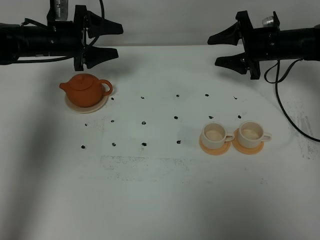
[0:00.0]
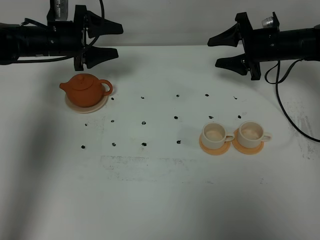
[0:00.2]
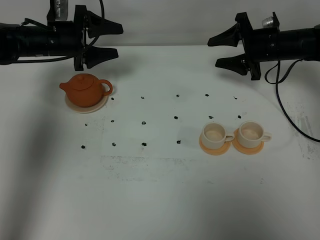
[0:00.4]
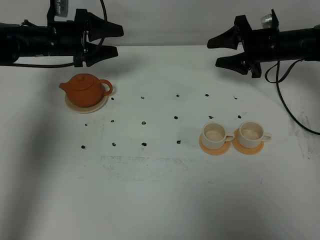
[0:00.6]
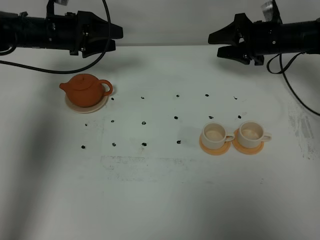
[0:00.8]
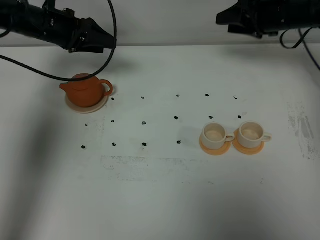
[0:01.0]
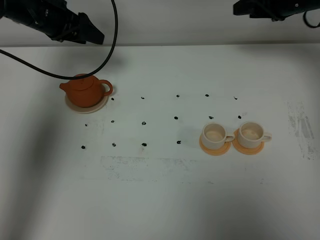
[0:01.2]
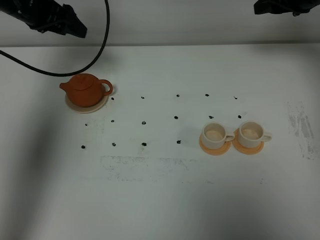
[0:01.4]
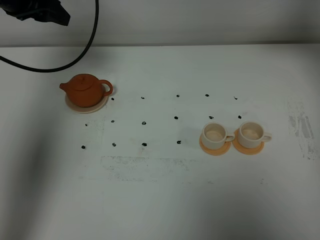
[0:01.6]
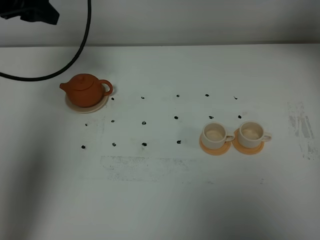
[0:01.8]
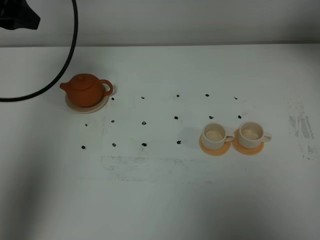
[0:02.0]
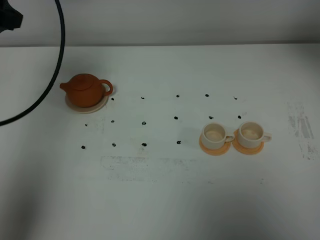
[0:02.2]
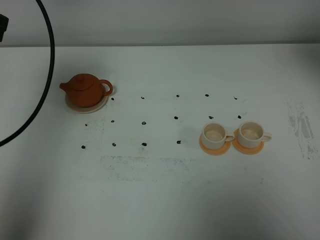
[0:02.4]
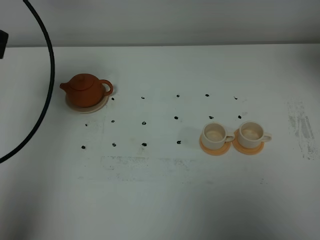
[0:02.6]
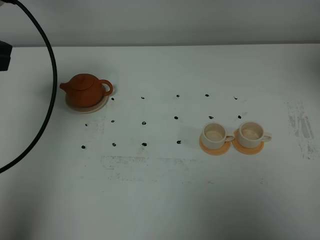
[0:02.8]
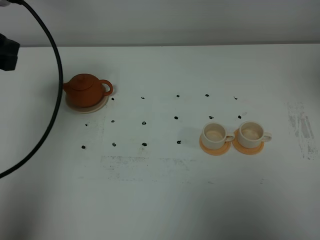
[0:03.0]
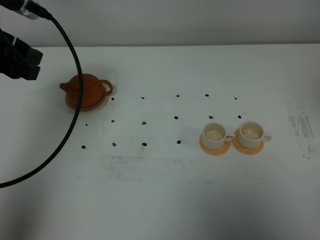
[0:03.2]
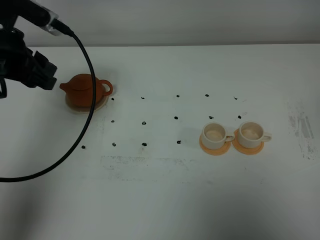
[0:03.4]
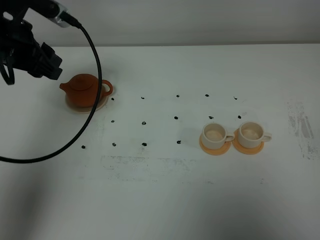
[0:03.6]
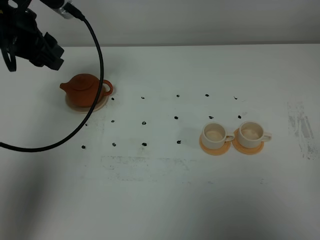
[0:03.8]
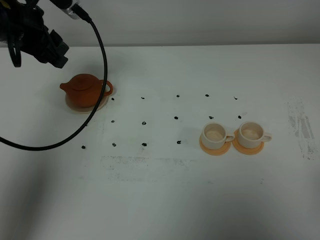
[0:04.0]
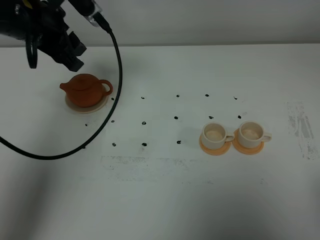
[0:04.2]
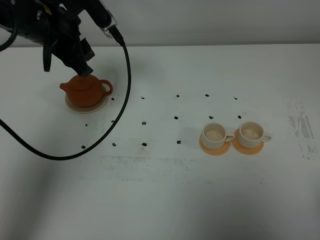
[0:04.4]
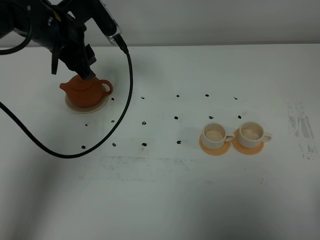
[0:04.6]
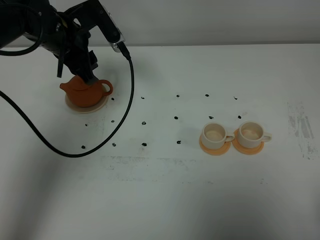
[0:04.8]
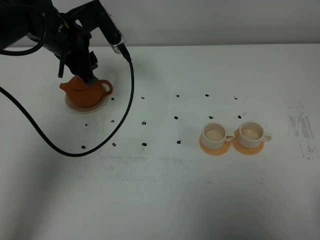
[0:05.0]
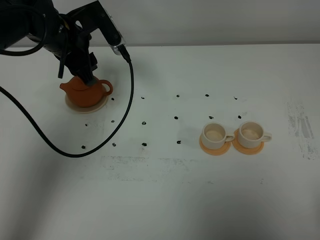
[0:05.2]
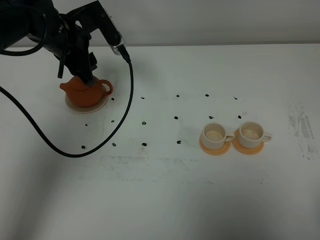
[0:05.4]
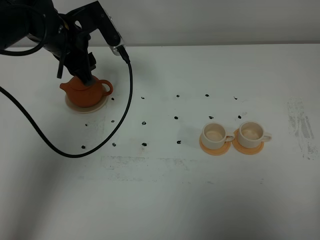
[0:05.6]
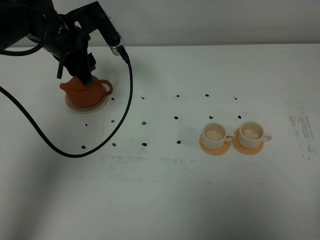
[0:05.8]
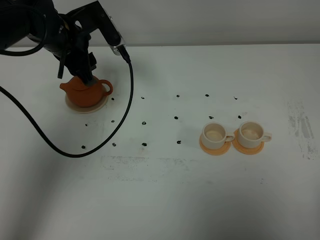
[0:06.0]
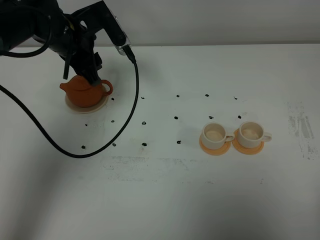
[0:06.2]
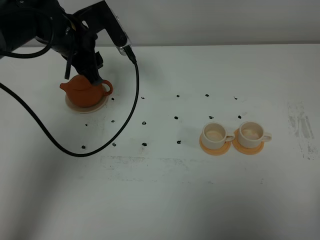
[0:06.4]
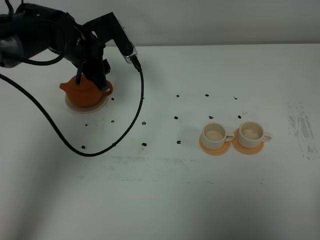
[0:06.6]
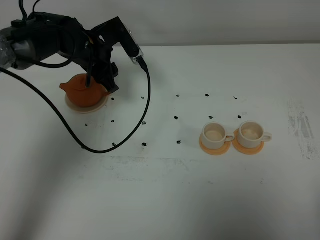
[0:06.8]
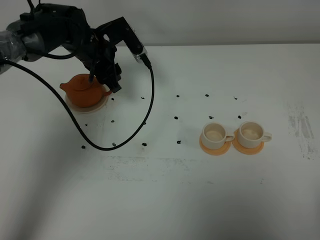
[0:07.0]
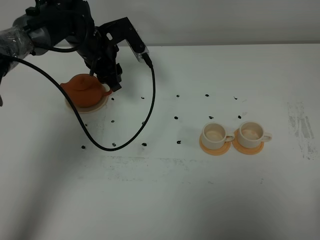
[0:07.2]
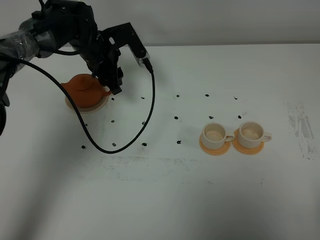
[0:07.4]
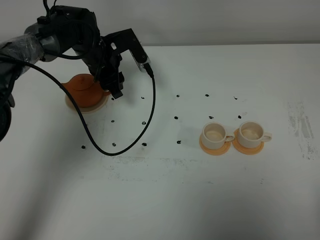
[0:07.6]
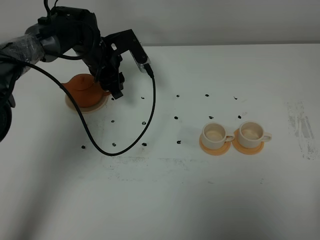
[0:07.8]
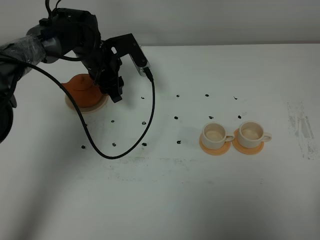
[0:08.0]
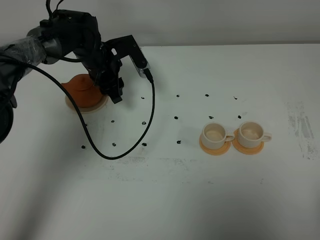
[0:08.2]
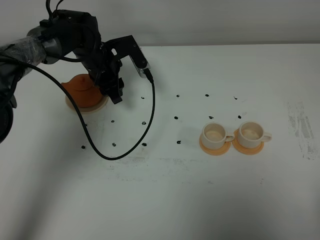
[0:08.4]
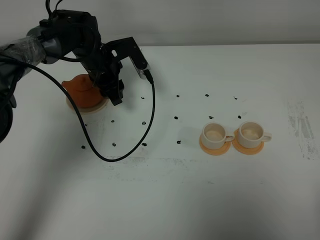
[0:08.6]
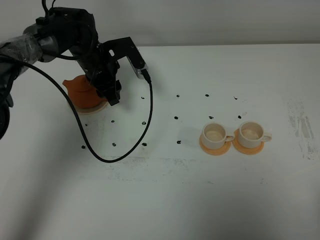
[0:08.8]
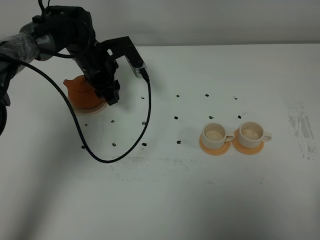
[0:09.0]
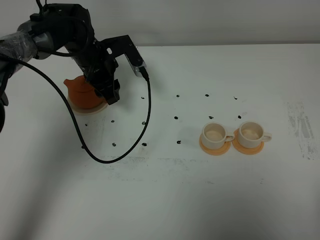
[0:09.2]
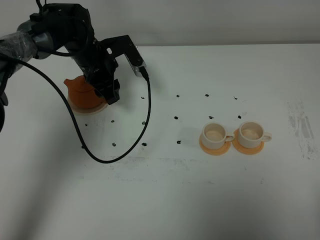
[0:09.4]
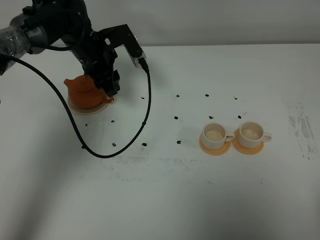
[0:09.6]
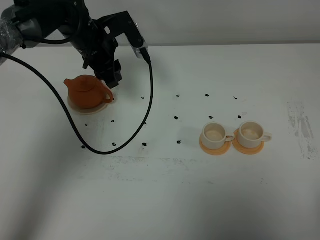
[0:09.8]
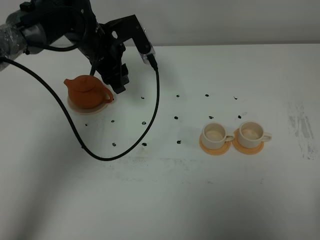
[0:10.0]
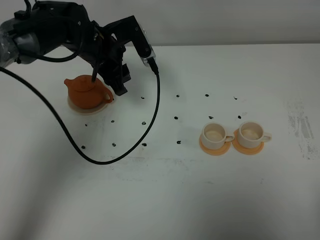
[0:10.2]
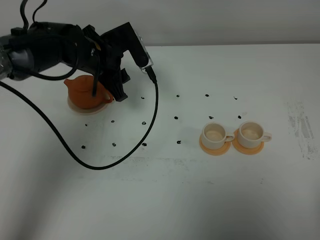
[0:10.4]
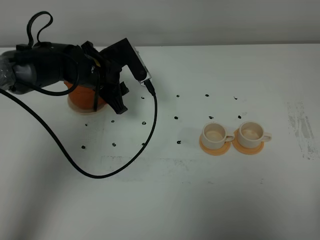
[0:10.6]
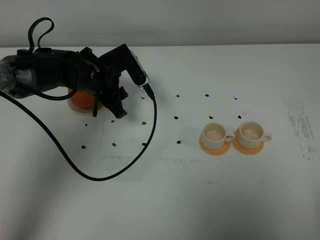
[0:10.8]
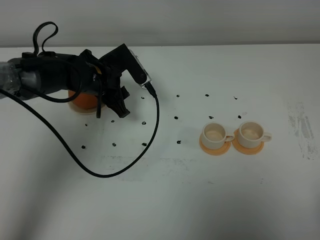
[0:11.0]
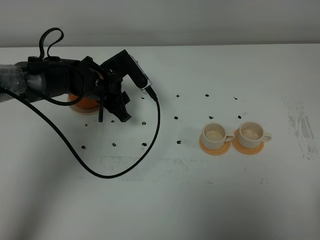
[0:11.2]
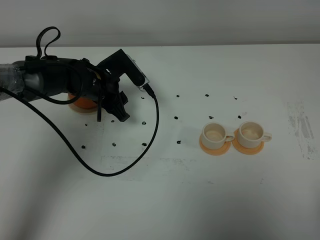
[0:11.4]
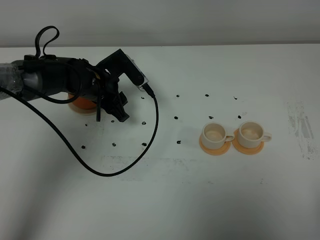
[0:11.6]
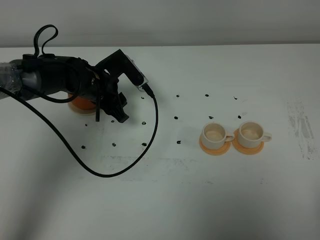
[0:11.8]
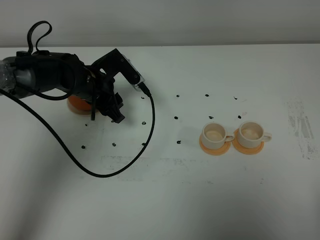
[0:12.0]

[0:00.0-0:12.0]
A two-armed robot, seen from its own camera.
Task of the whole recording: grasp the brown teapot and pour the tea into the two white teacups one by one, put the brown teapot back in its original place.
0:00.0 to 0:01.6: Both grippers travel together upward, roughly 15 cm.
0:01.6 to 0:03.0: The right gripper is displaced backward and upward by approximately 30 cm, and closes. The left gripper is displaced backward by roughly 15 cm.
0:03.0 to 0:04.4: The right gripper travels backward and downward by approximately 25 cm, and closes up; the left gripper moves forward, to the right and downward, approximately 15 cm.
0:04.4 to 0:06.0: The grippers move only a little.
0:06.0 to 0:07.6: The left gripper is displaced downward and forward by some 10 cm.
0:07.6 to 0:09.0: There are only small adjustments of the grippers.
0:09.0 to 0:10.4: The left gripper moves roughly 5 cm.
0:10.4 to 0:12.0: The left gripper changes place by roughly 5 cm.

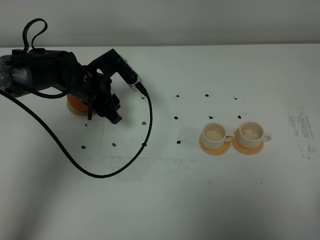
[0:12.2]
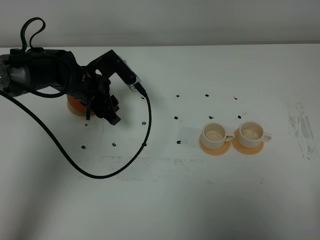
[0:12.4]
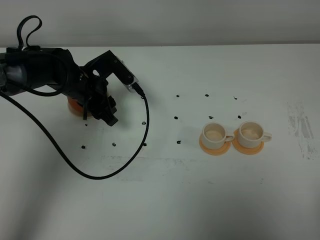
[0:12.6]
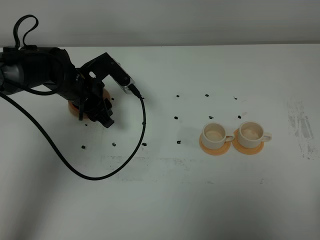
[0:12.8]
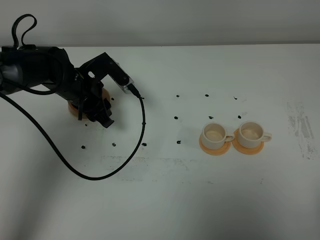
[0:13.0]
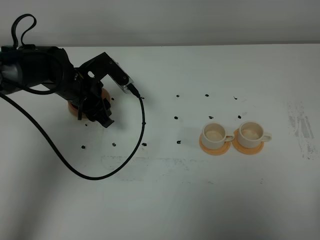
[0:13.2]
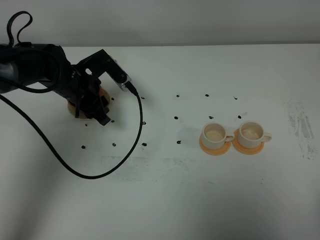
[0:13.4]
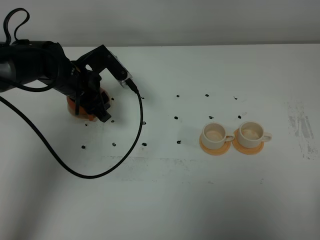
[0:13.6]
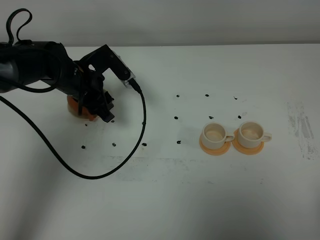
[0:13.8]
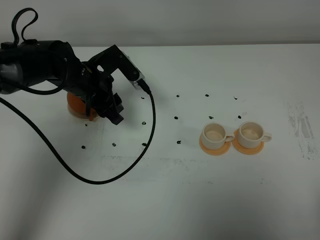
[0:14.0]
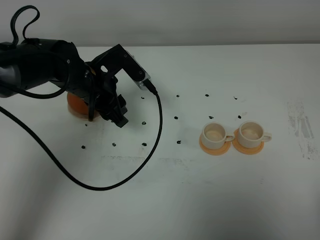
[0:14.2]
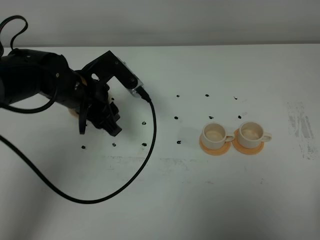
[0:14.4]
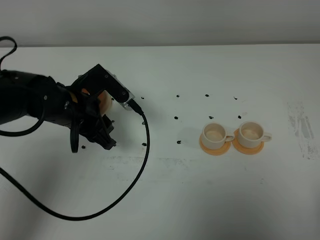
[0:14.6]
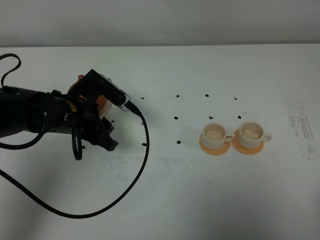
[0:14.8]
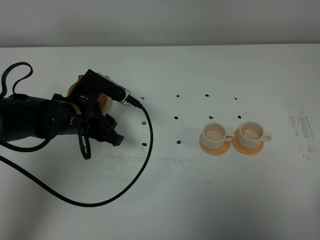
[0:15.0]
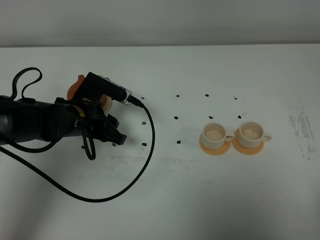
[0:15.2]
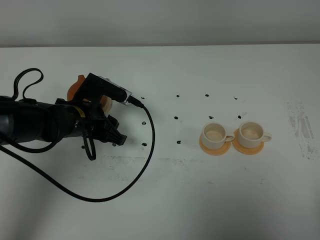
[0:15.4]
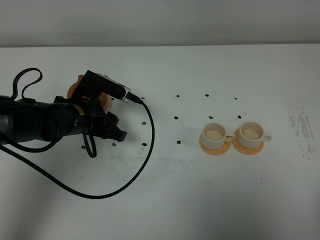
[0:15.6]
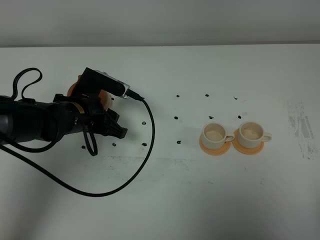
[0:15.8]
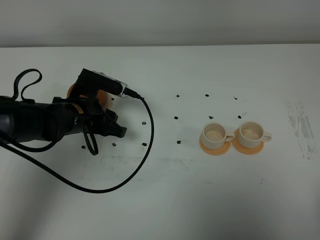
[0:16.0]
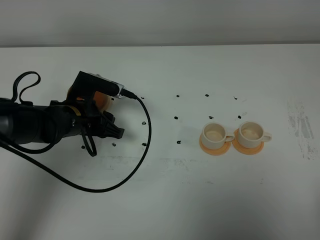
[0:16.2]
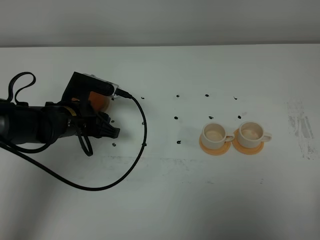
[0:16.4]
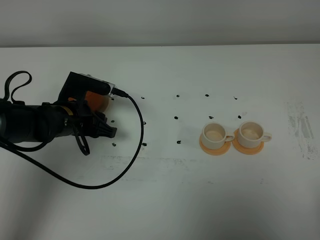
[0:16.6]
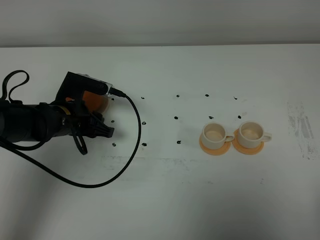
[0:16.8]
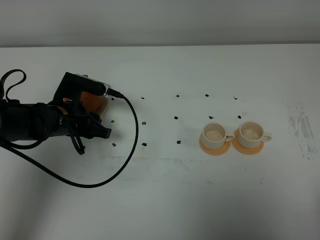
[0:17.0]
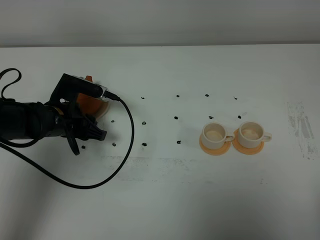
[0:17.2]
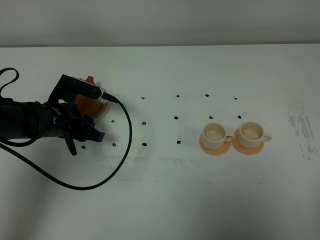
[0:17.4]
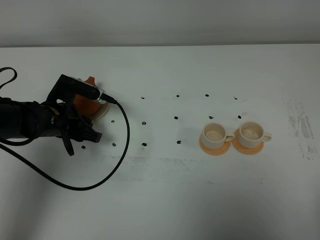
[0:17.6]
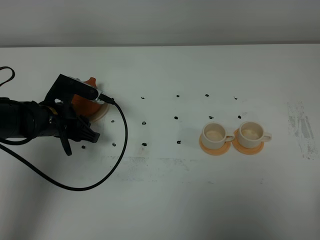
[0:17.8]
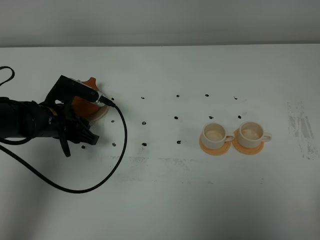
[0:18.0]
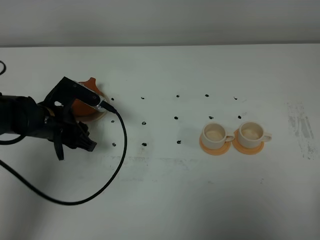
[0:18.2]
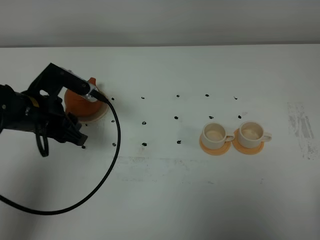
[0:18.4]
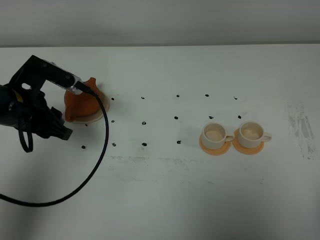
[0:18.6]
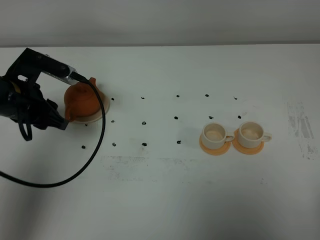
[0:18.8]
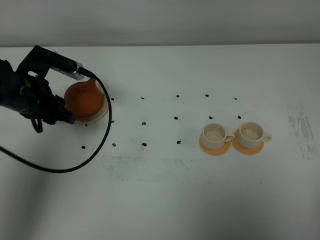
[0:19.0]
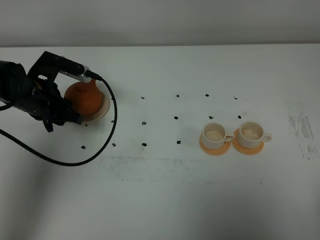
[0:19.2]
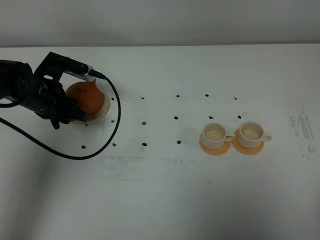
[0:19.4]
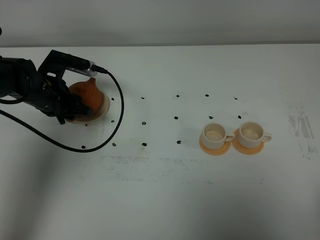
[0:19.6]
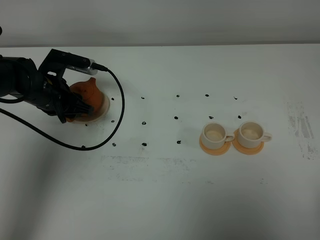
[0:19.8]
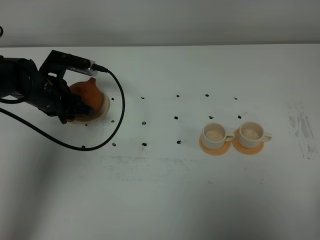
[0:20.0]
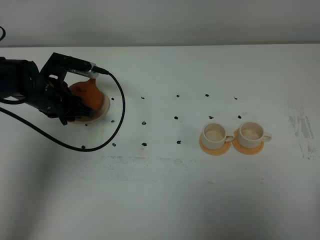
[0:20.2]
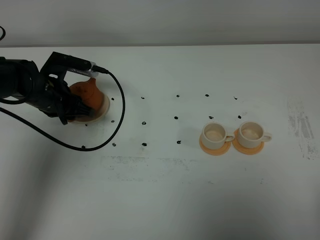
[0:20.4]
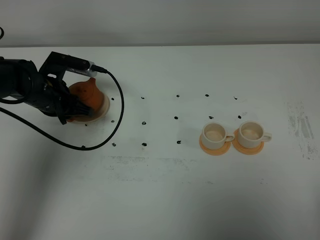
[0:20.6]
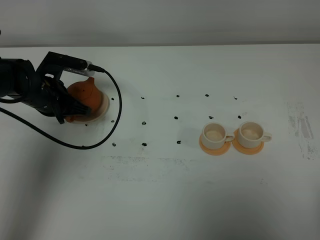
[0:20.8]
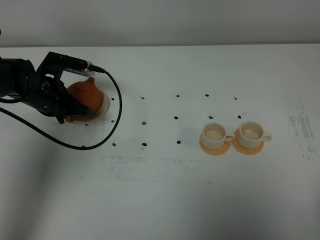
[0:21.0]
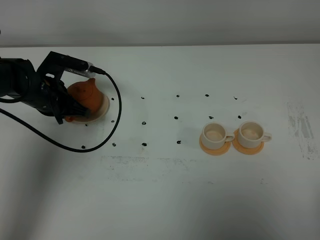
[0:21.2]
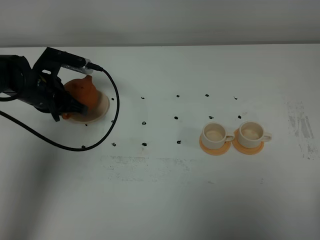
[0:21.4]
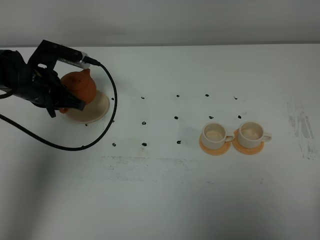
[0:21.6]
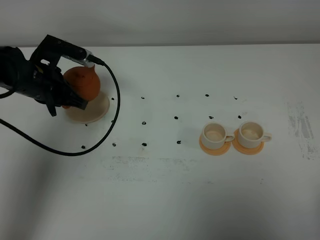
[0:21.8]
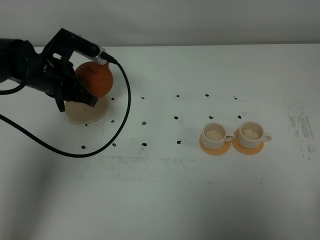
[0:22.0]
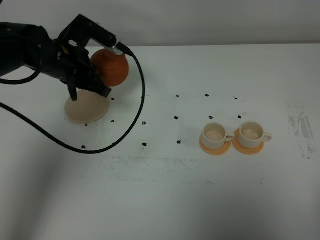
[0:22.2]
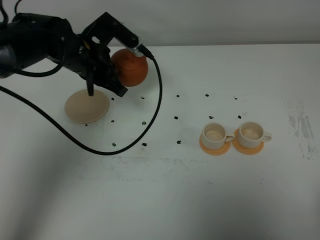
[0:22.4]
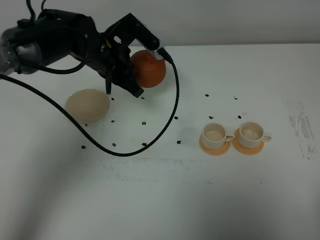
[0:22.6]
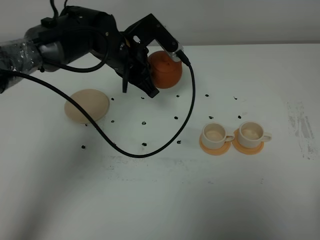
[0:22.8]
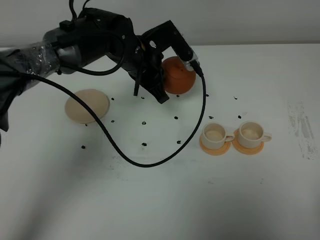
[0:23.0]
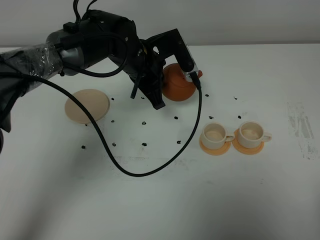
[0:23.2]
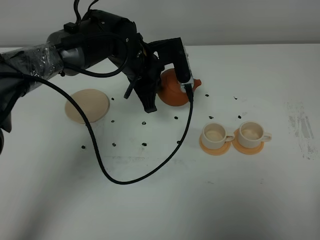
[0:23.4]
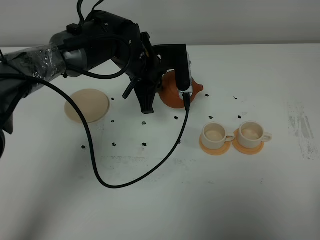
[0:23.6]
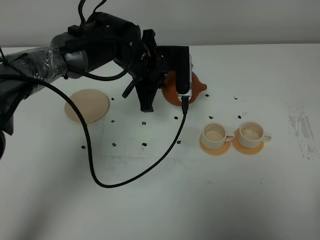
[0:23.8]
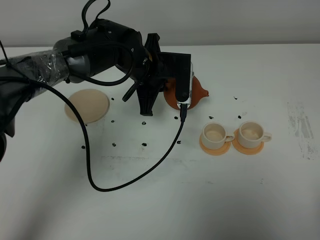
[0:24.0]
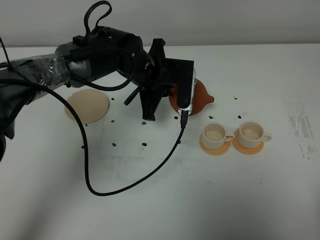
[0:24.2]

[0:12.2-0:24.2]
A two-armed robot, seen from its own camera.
Task of the whole recording: grasp the brown teapot and pour the tea into the two white teacups one by one, put the brown teapot back in its original place.
Step, 0:12.2 to 0:21.2: Pick up the teapot with the left gripper.
0:12.2 to 0:13.8: There are only small adjustments of the grippers.
0:13.8 to 0:15.2: The left gripper heads backward, covering some 5 cm.
0:15.2 to 0:18.2: The grippers stay close to where they were, moving slightly.
0:18.2 to 0:19.8: The left gripper shifts some 5 cm forward.
0:19.8 to 0:21.2: The left gripper closes.
0:21.2 to 0:22.6: The left gripper shifts approximately 15 cm to the right and upward.
0:22.6 to 0:24.2: The left gripper travels to the right by some 5 cm.
